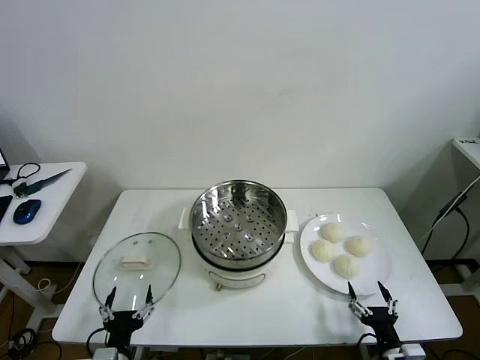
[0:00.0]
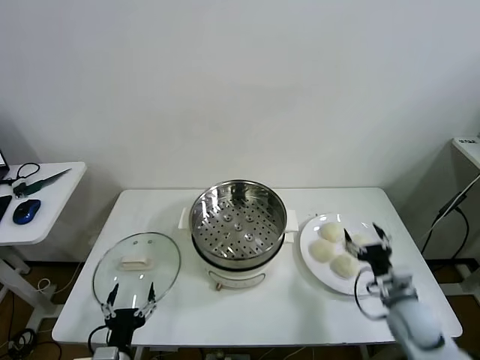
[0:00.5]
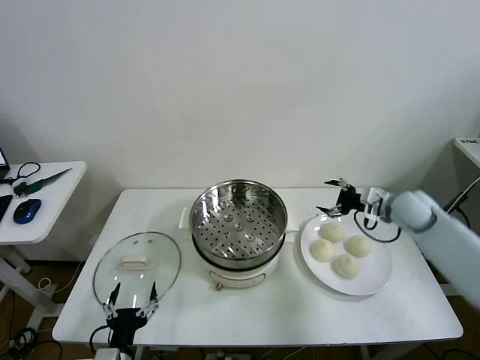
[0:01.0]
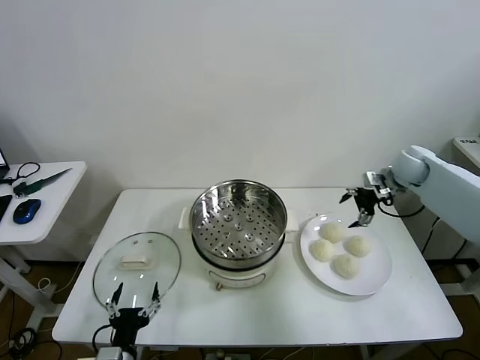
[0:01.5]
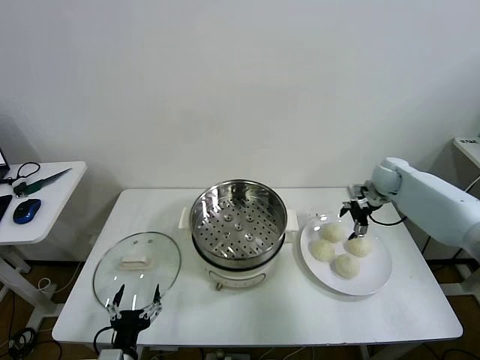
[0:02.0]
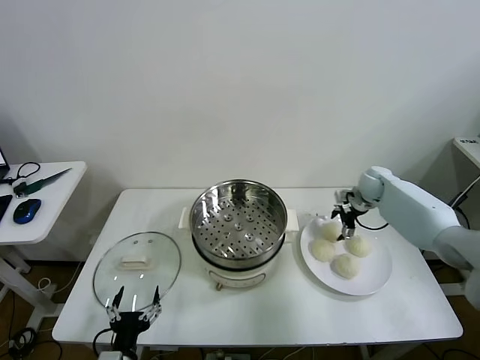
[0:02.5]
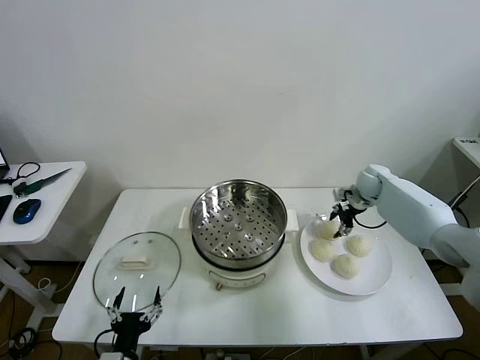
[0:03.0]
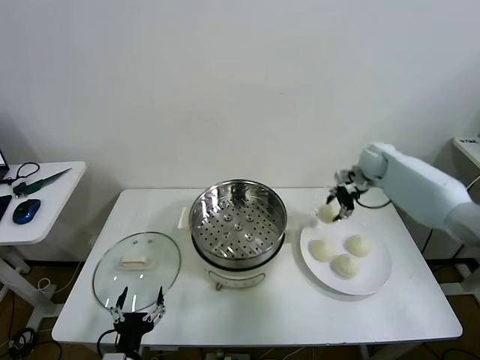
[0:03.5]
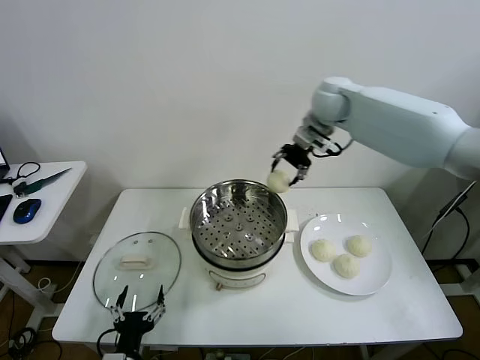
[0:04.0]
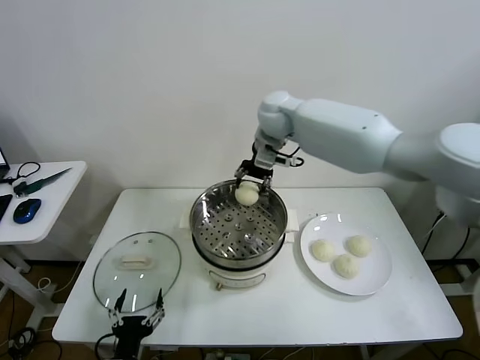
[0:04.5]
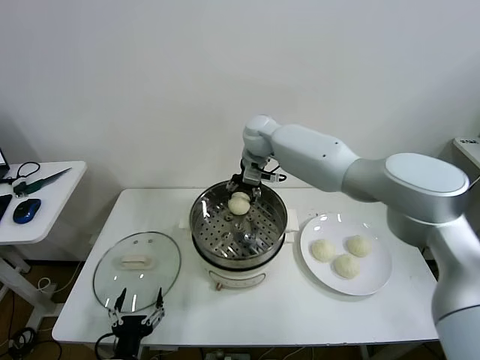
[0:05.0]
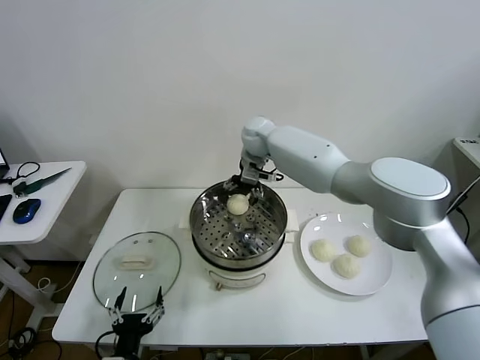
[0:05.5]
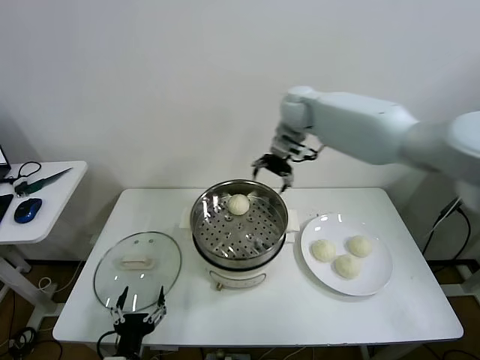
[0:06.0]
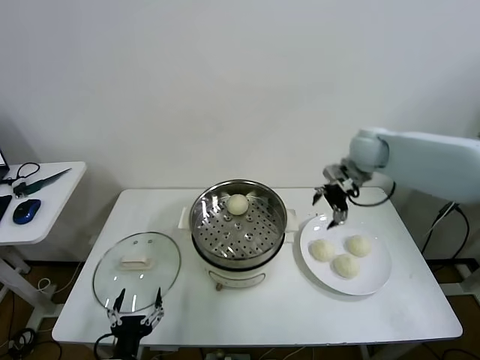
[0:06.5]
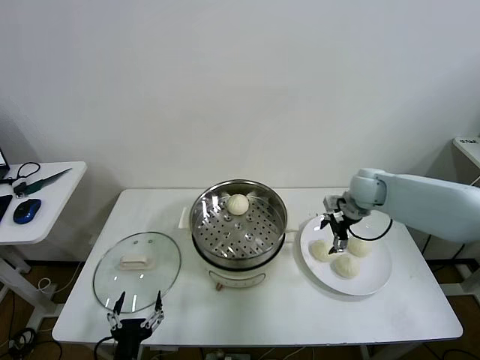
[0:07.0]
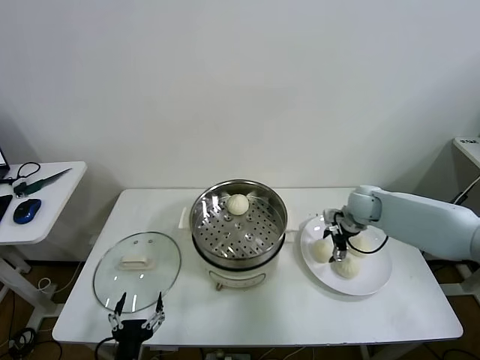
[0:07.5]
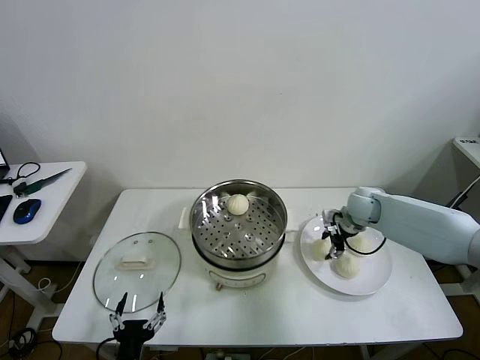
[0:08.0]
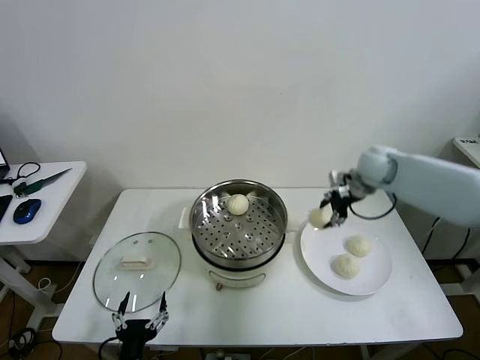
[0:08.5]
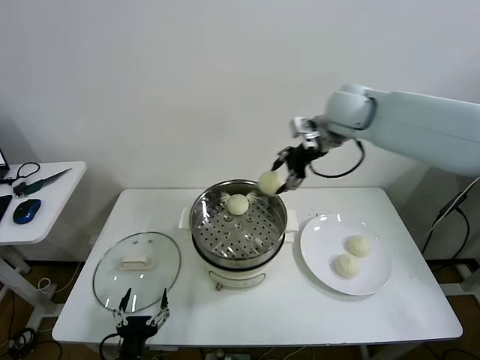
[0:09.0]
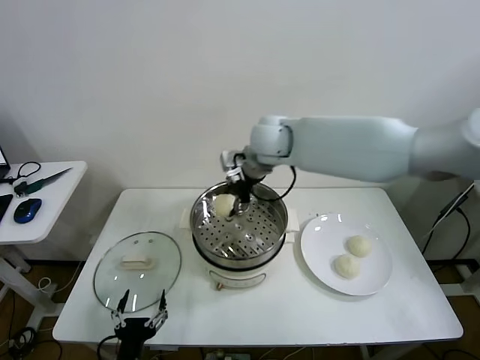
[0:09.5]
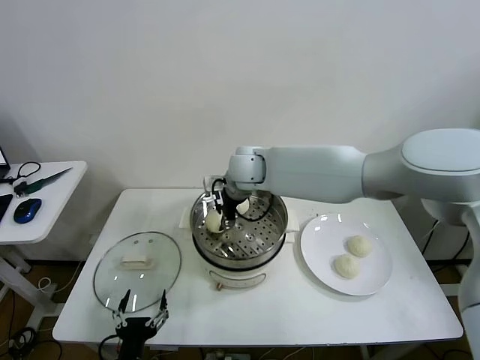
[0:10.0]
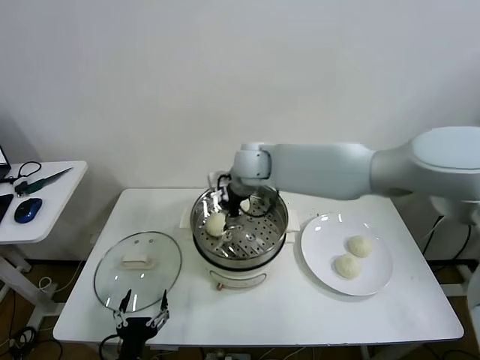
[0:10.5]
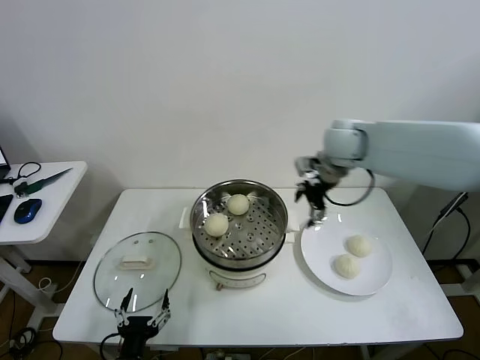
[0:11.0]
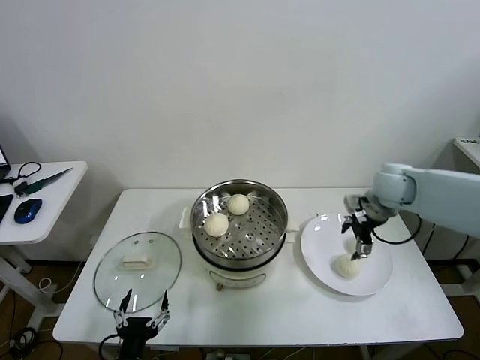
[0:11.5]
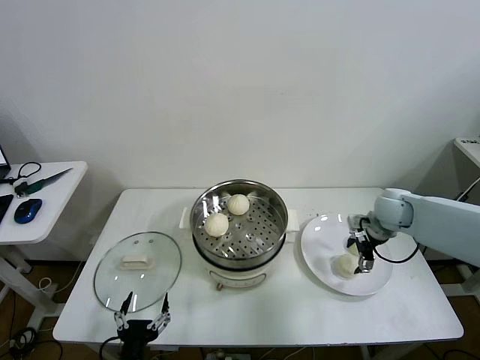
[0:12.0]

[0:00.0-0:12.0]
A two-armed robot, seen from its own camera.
Task of the whole recording: take steamed baozi put them in steamer then cover it.
Step, 0:00.0 to 0:02.5: Grasp the baozi in the plate with right gripper.
Step, 0:03.0 to 0:05.5: Place the baozi on the steamer with right gripper.
Step, 0:06.0 to 0:08.0: Grasp the baozi in the plate with right gripper.
Step, 0:08.5 to 0:10.0: Place the baozi on the steamer with right gripper.
0:02.0 to 0:04.0: The right gripper moves to the left and upward, roughly 35 cm, and closes its fingers.
0:04.0 to 0:06.0: The right gripper goes to the left and returns, roughly 10 cm each way, and opens.
0:06.0 to 0:08.0: The right gripper moves downward and to the right, about 25 cm, and closes up.
0:08.0 to 0:10.0: The right gripper travels to the left and upward by about 35 cm.
0:10.0 to 0:12.0: The right gripper is displaced to the right by approximately 35 cm, and opens its fingers.

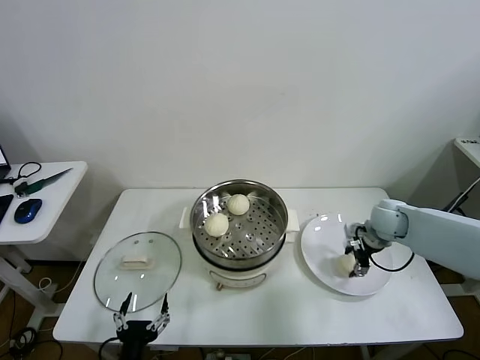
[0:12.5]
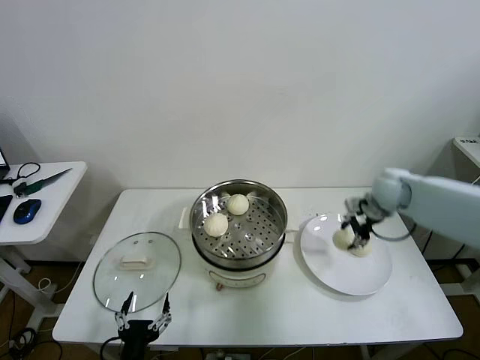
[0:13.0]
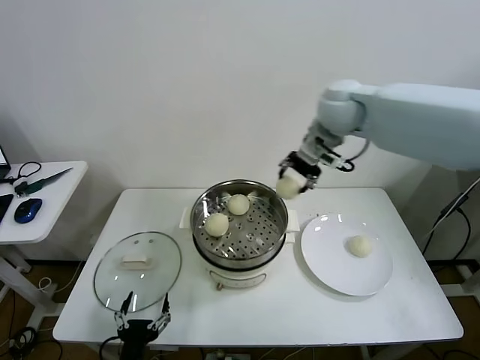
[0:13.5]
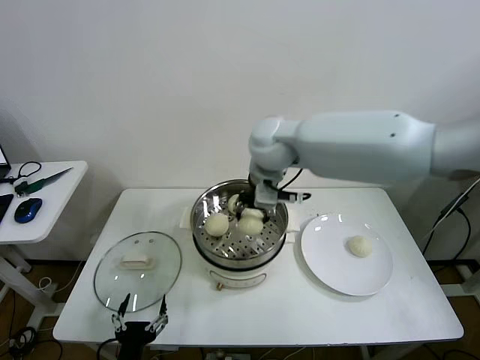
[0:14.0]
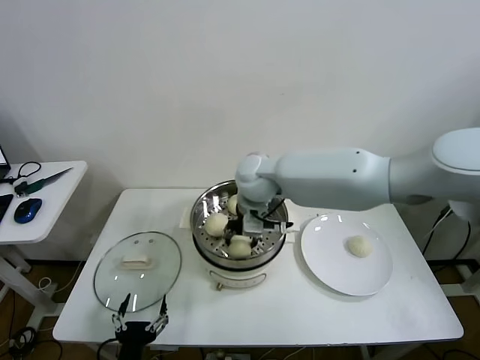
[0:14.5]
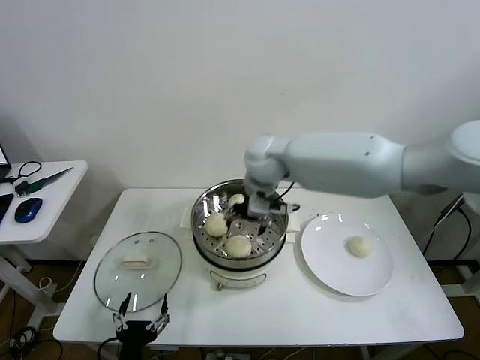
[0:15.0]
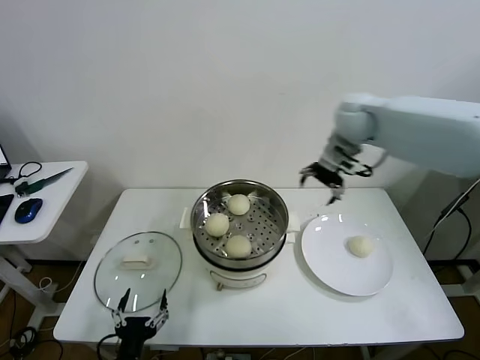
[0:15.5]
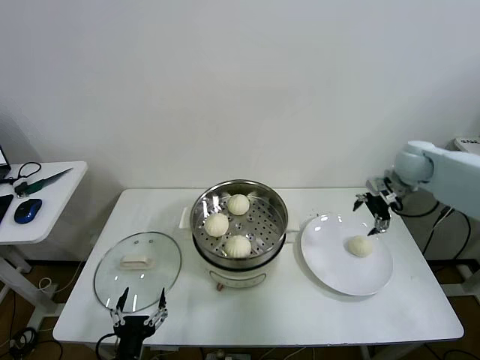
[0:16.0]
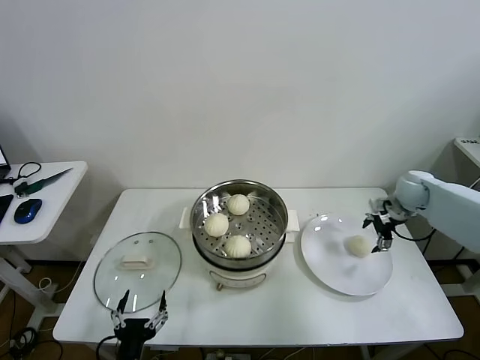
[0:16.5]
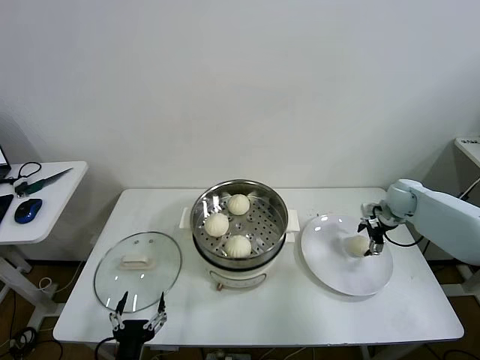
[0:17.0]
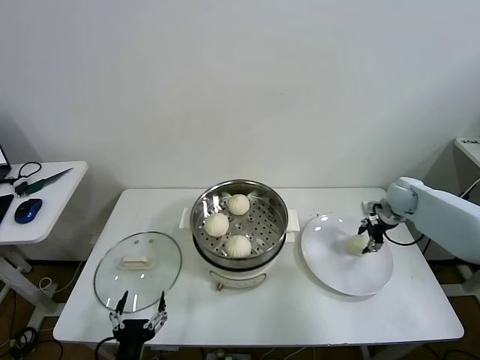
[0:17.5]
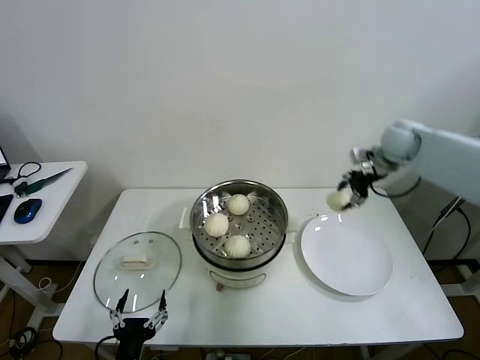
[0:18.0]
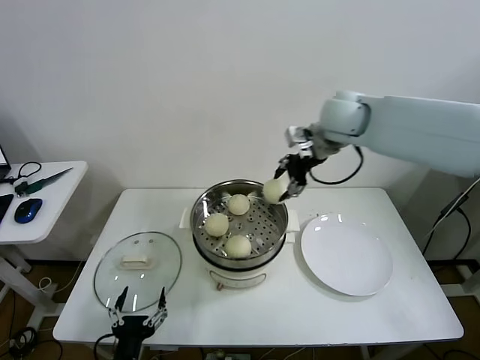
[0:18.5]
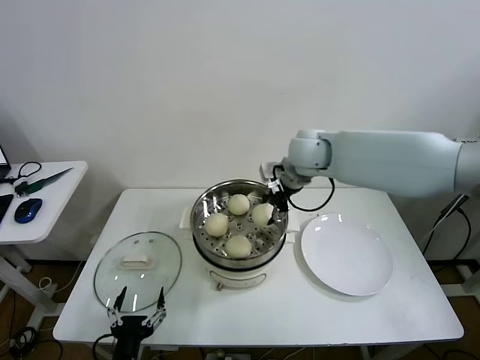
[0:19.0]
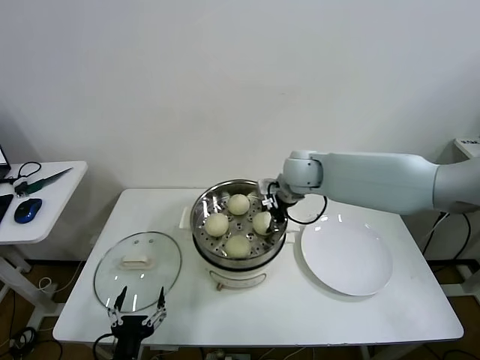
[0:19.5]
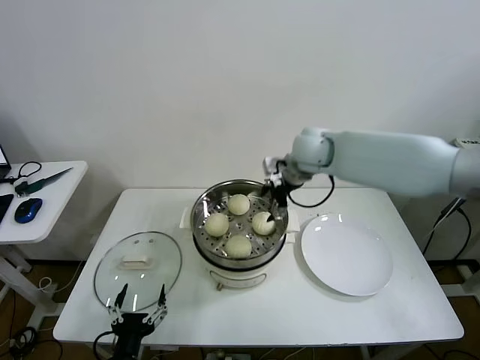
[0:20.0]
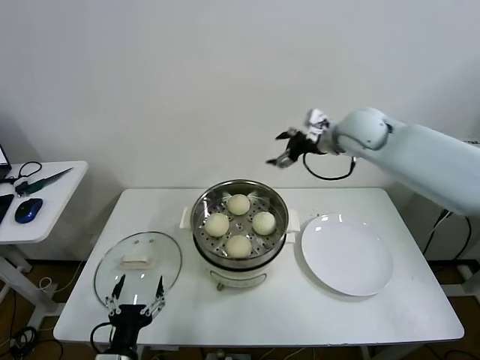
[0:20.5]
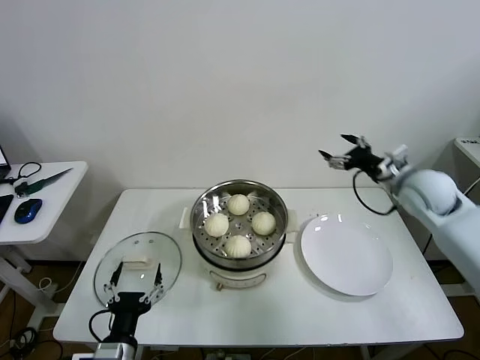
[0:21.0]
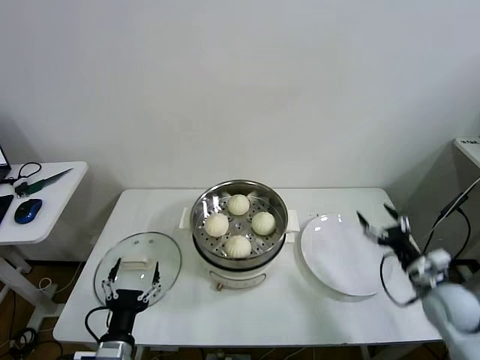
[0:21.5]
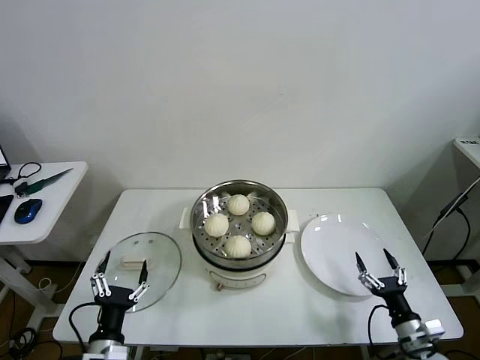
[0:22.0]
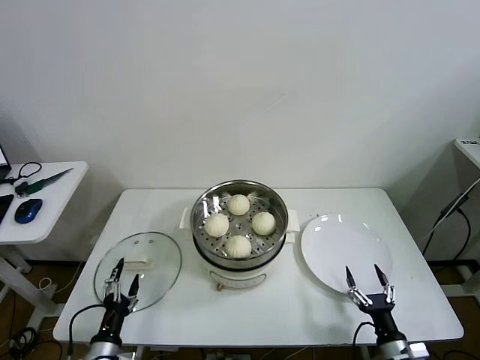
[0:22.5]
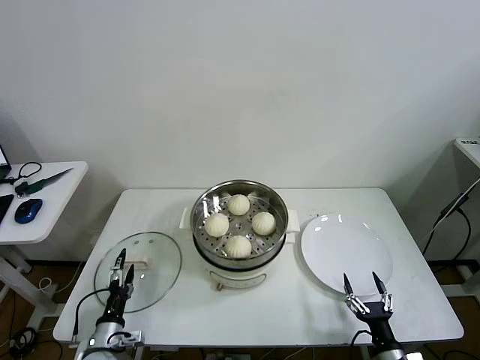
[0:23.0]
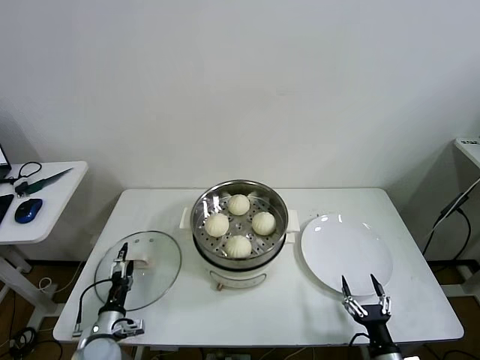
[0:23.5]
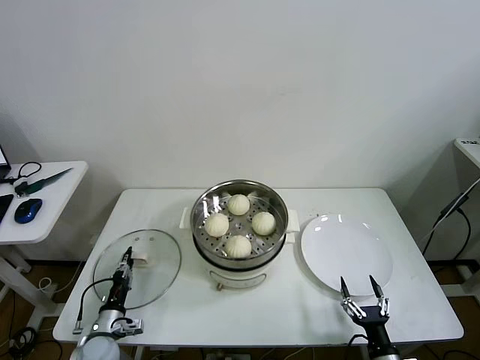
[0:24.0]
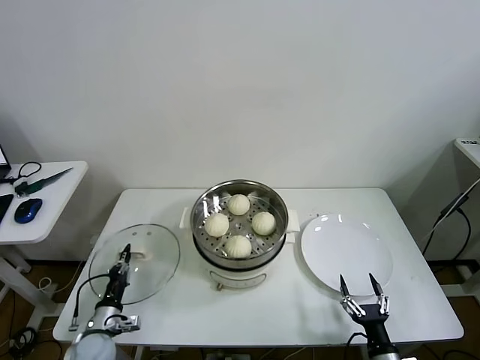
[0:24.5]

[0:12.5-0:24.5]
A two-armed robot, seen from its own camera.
Task of the whole recording: take steamed baozi put them in steamer then cover it.
Step, 0:13.0 to 0:14.5: Place the baozi on the steamer with right gripper.
Step, 0:15.0 to 0:17.0: Grasp the baozi in the plate with right gripper.
Step, 0:17.5 to 0:19.5: Place the baozi on the steamer with right gripper.
Step, 0:20.0 to 0:24.0: Grasp the pot lid with left gripper.
0:12.5 to 0:14.5: The right gripper heads to the left and upward, covering some 35 cm.
0:14.5 to 0:16.5: The right gripper travels to the right by approximately 40 cm, and opens up.
0:16.5 to 0:18.5: The right gripper is displaced to the left and upward by roughly 35 cm, and closes up.
0:18.5 to 0:20.5: The right gripper moves to the right, some 5 cm, reaches about 15 cm downward, then returns, and opens its fingers.
0:20.5 to 0:22.5: The left gripper travels downward and to the left by about 10 cm; the right gripper goes about 60 cm downward and backward.
0:22.5 to 0:24.5: The left gripper moves forward, about 10 cm, and closes up.

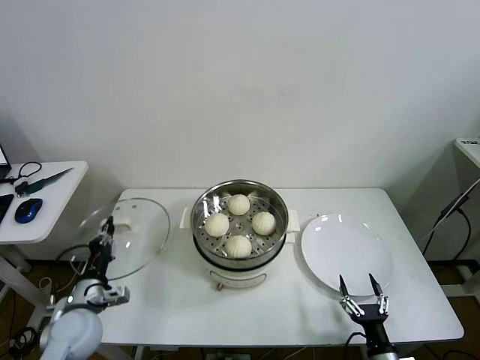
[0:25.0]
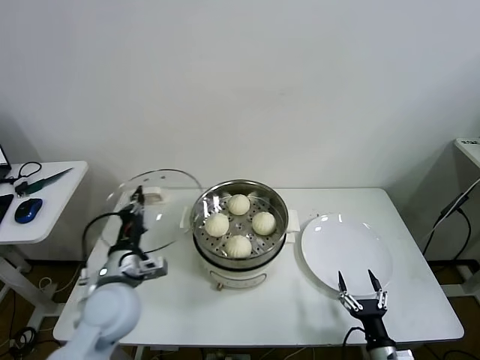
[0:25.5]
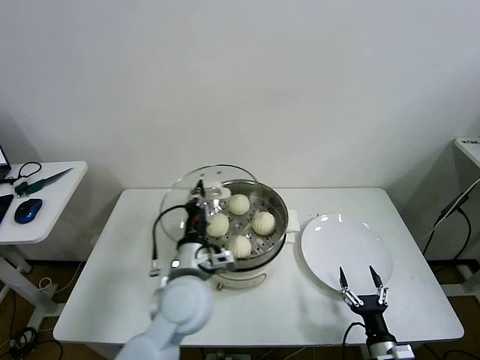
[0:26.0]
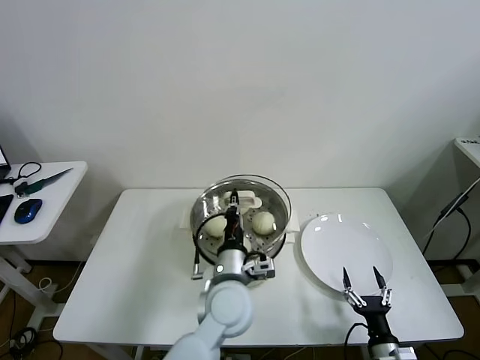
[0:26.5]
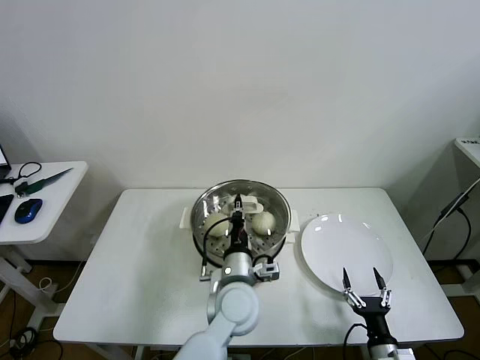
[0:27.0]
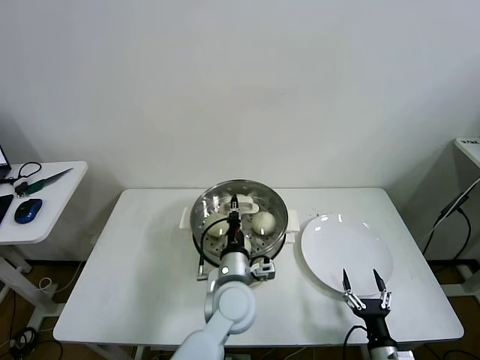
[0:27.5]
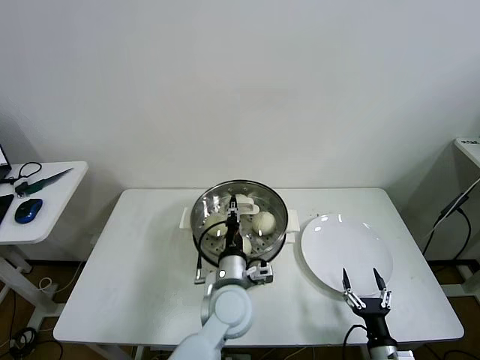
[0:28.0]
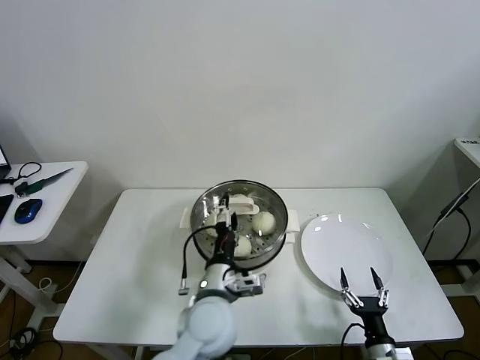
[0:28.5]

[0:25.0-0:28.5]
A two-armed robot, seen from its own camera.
Task of the whole recording: take steamed baozi put them in steamer then cover it.
Step, 0:25.0 to 0:28.0: Place the pot lid on the steamer with left gripper.
0:25.0 to 0:27.0: The left gripper goes approximately 35 cm to the right.
0:27.0 to 0:28.5: The left gripper changes place by roughly 5 cm, and opens up.
